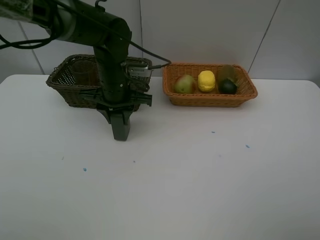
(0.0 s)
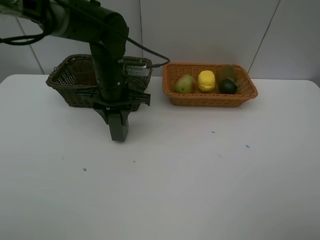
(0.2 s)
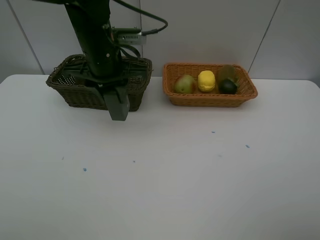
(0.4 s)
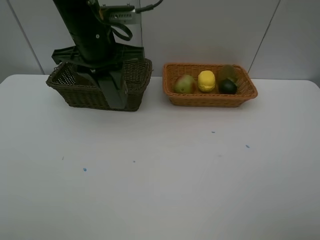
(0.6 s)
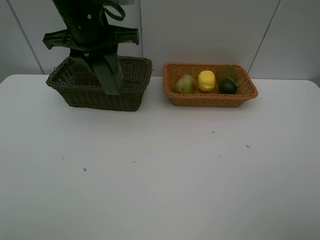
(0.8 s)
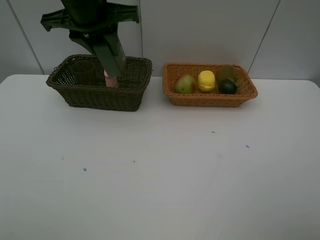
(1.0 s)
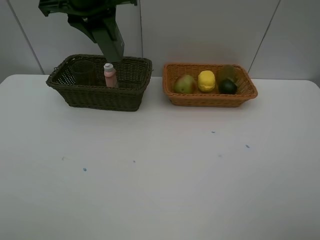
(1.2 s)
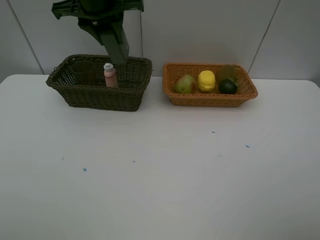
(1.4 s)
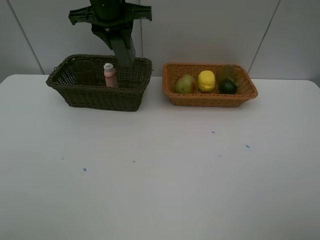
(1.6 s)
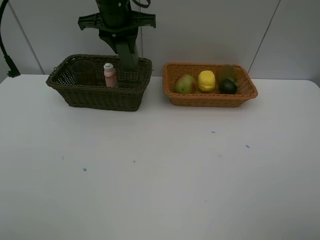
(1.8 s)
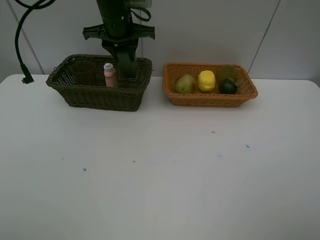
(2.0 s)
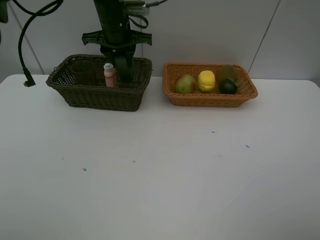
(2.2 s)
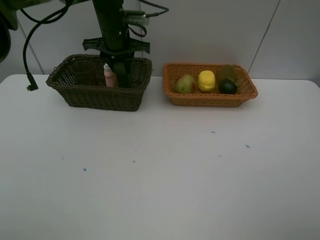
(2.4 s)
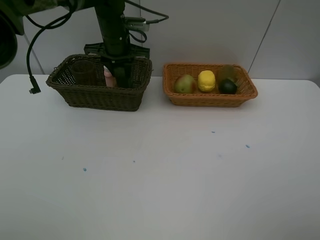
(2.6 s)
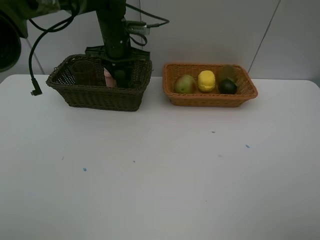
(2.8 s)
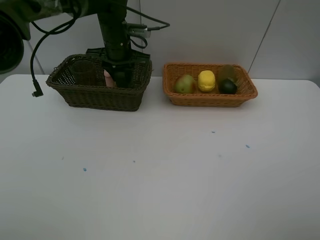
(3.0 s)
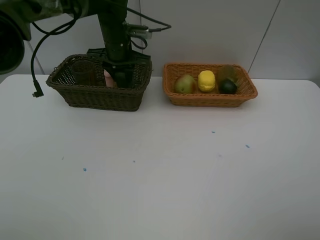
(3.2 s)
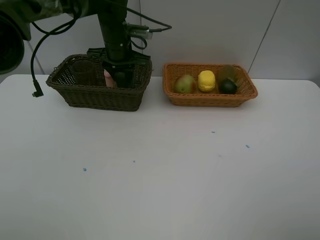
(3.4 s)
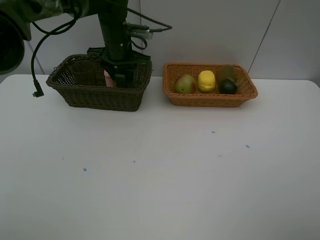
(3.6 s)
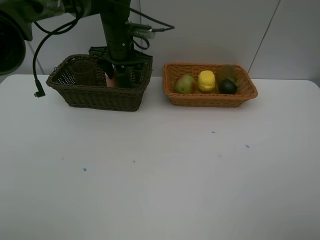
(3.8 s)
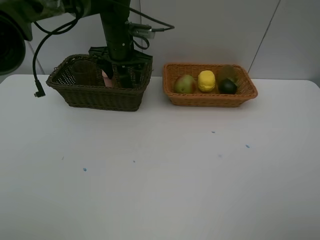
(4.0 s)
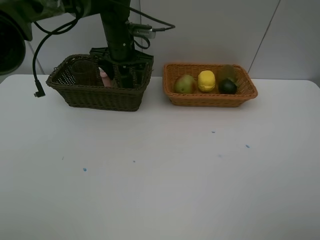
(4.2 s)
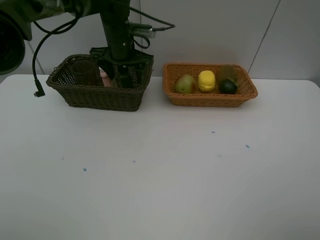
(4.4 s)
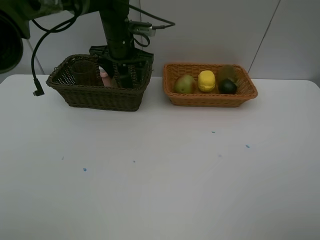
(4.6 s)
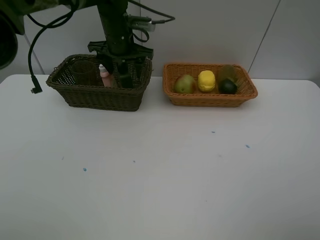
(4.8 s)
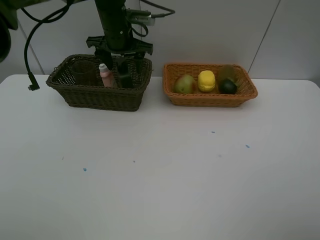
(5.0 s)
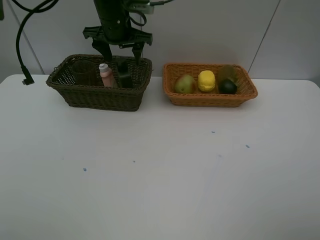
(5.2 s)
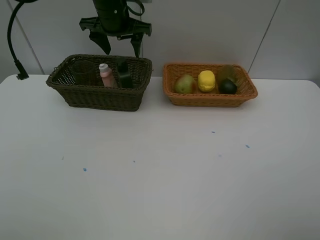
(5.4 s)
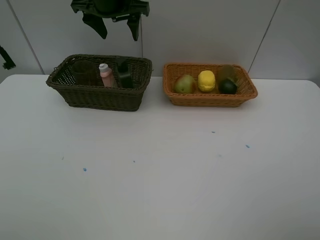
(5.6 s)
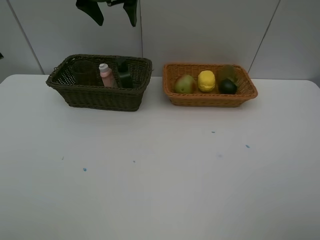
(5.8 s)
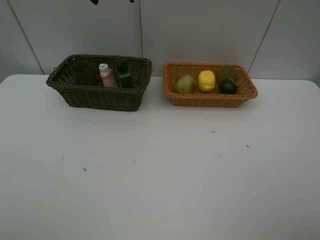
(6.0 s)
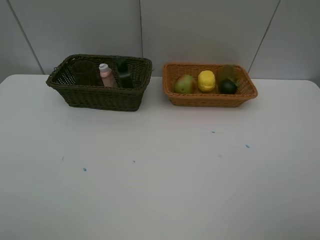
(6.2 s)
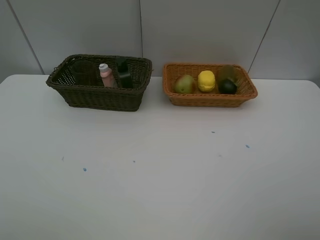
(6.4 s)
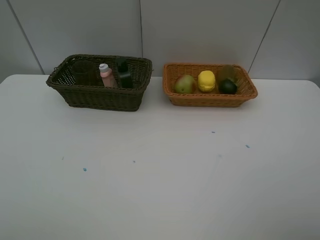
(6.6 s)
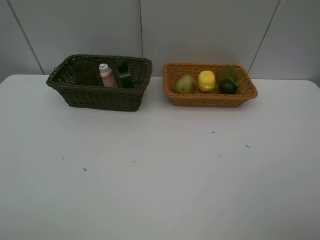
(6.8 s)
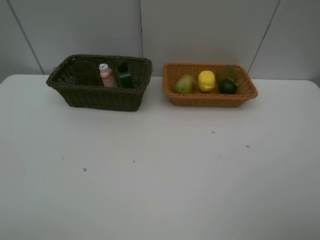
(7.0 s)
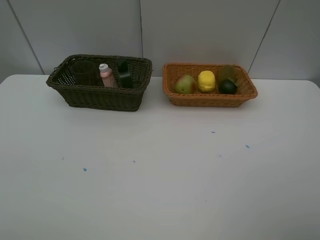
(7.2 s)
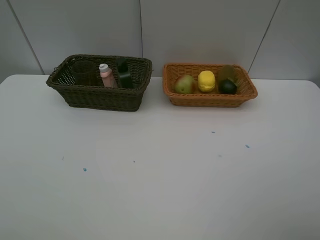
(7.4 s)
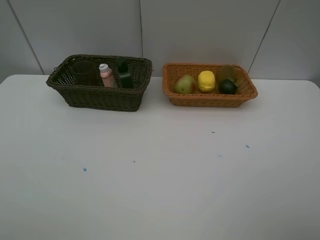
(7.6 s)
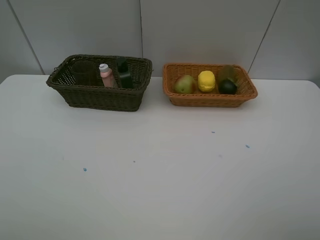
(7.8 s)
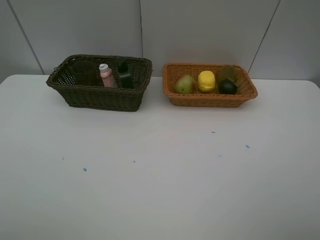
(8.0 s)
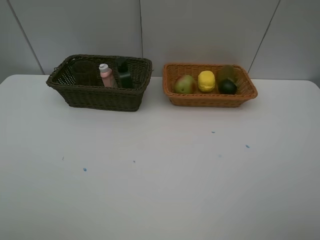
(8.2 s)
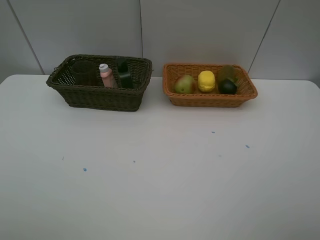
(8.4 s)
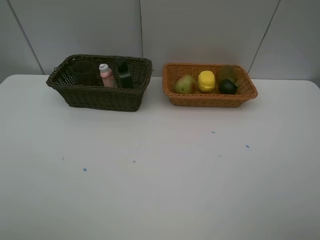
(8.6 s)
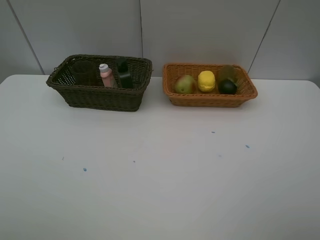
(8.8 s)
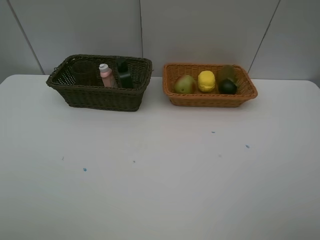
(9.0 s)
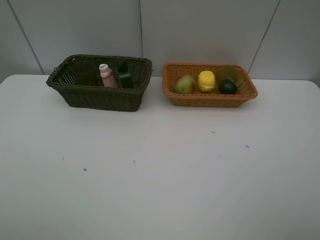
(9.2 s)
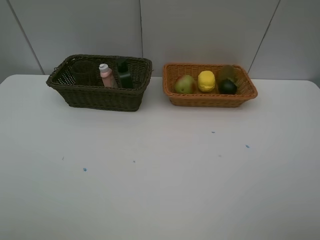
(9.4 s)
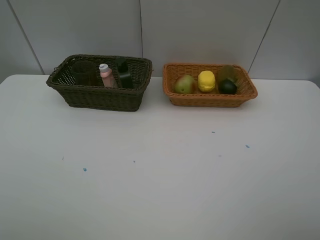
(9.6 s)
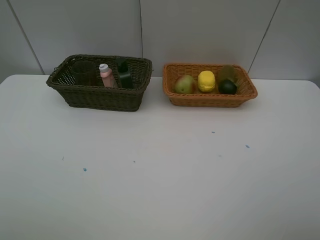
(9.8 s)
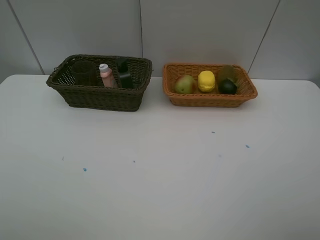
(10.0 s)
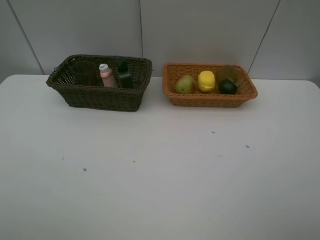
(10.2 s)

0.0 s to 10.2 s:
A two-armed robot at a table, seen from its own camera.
Task of the whole recording: Place multiple objects separately in different baskets.
Step, 0.6 to 4.8 s: Place the hard facial cleanser in the dark basket with left gripper.
0.0 to 1.4 s: The left gripper heads upward, covering some 15 cm.
1.4 to 3.0 s: The left gripper heads downward and forward, covering roughly 15 cm.
3.0 to 4.4 s: The left gripper opens its fingers.
4.4 to 5.8 s: The left gripper is displaced upward by roughly 15 cm.
5.8 to 7.2 s: The left gripper moves backward and to the left, about 30 cm.

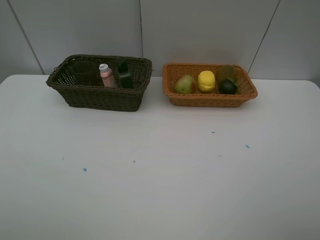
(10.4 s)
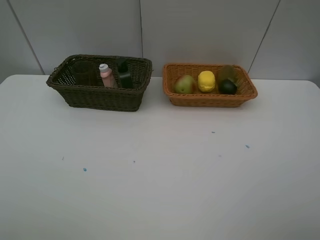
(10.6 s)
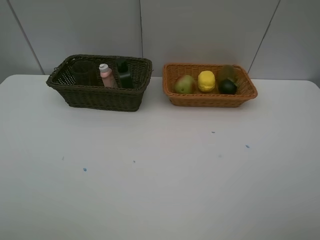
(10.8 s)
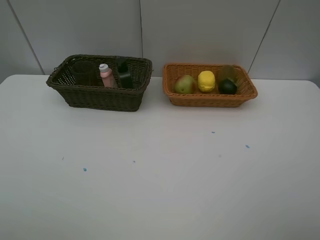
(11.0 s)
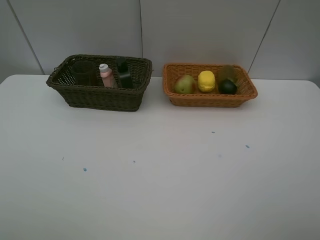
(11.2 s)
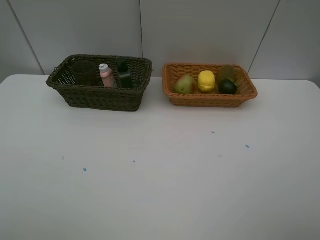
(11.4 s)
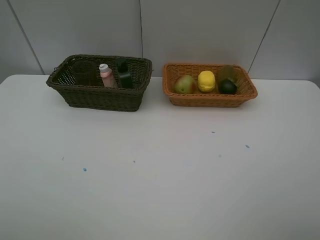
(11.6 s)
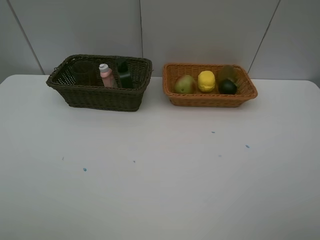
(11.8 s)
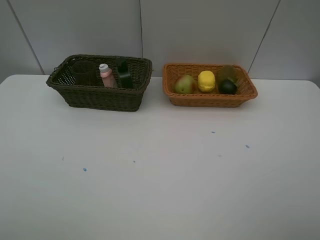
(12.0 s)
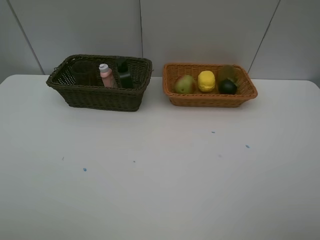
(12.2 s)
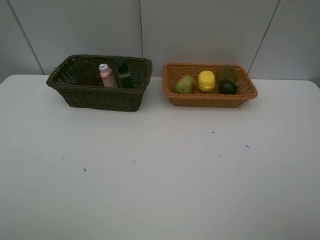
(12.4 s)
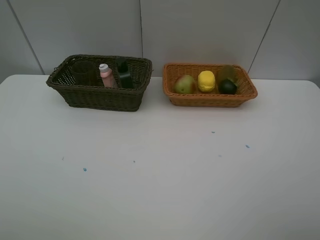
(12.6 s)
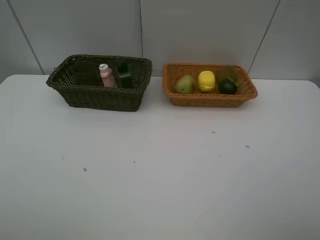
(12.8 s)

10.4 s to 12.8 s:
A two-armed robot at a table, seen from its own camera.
Task of the whole recording: Place multiple objects separately in different baskets.
10.4 to 12.8 s: The two grippers keep their place.

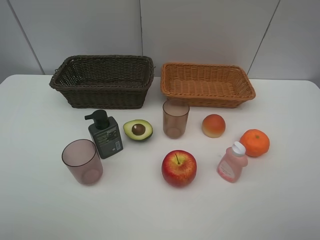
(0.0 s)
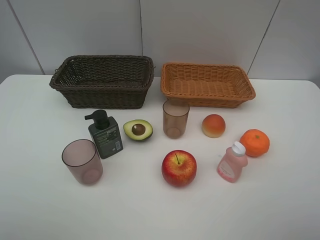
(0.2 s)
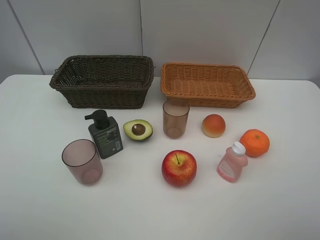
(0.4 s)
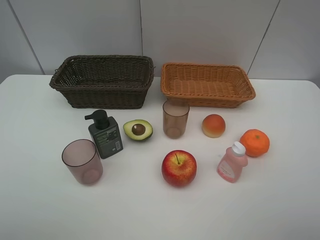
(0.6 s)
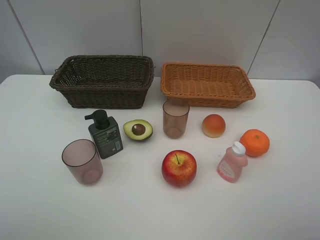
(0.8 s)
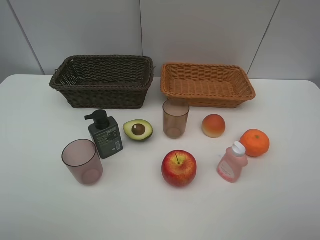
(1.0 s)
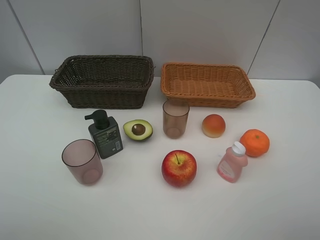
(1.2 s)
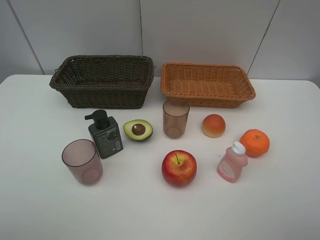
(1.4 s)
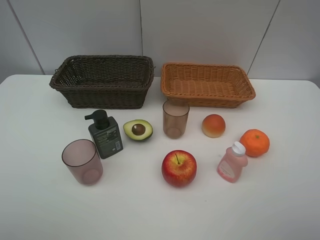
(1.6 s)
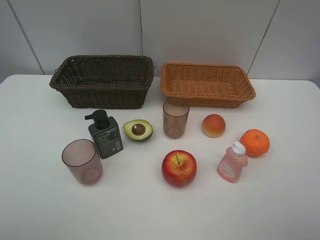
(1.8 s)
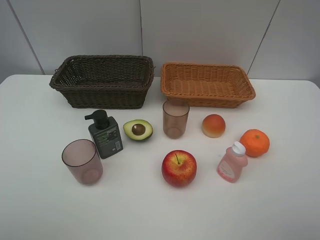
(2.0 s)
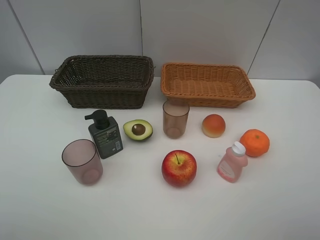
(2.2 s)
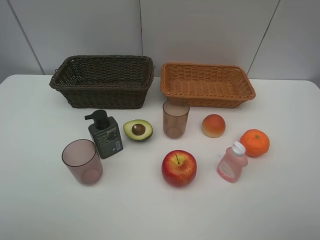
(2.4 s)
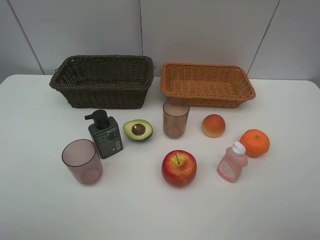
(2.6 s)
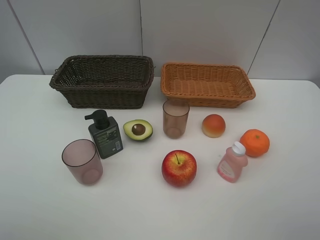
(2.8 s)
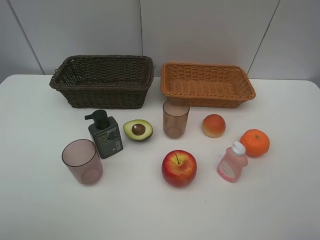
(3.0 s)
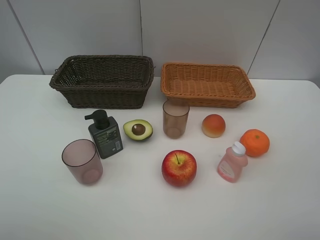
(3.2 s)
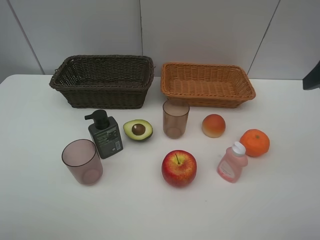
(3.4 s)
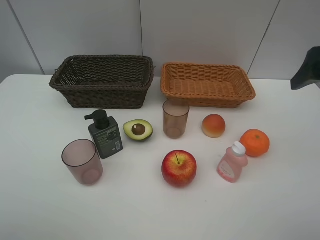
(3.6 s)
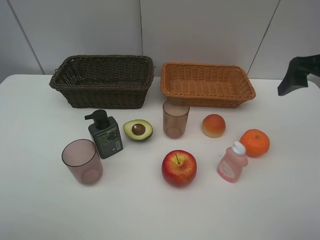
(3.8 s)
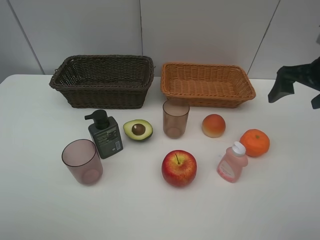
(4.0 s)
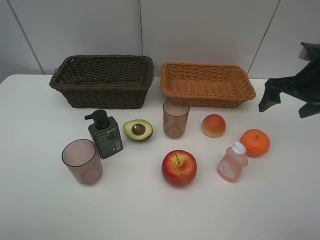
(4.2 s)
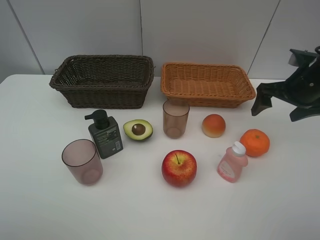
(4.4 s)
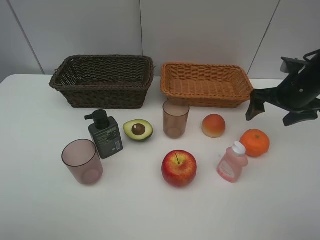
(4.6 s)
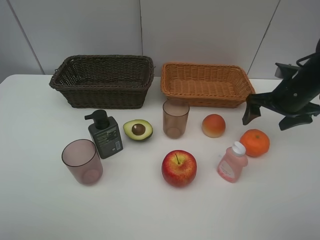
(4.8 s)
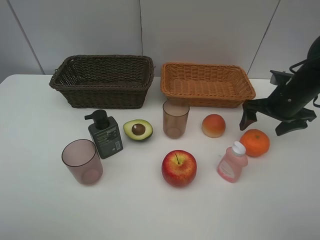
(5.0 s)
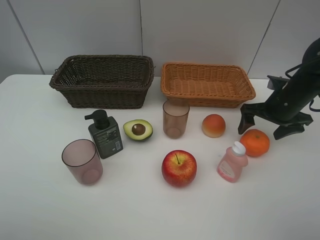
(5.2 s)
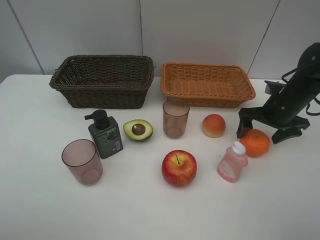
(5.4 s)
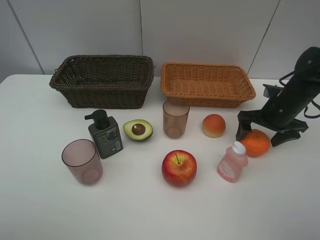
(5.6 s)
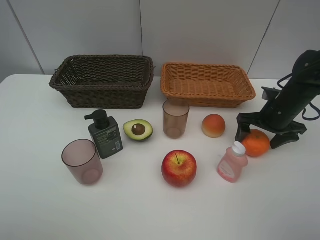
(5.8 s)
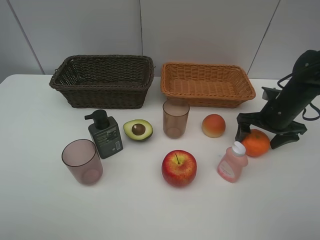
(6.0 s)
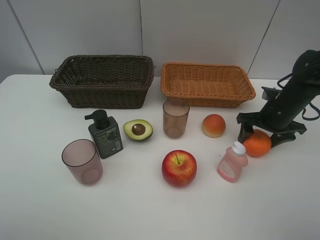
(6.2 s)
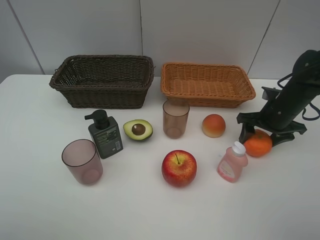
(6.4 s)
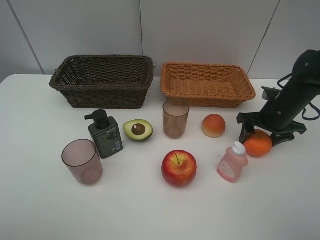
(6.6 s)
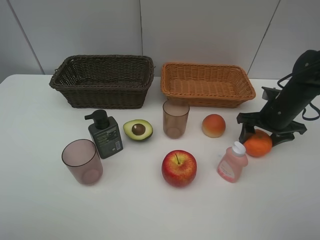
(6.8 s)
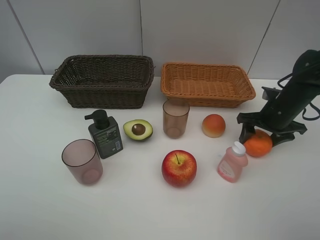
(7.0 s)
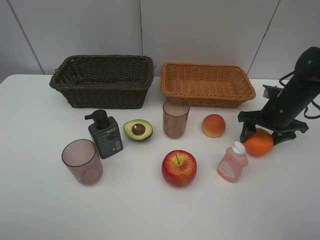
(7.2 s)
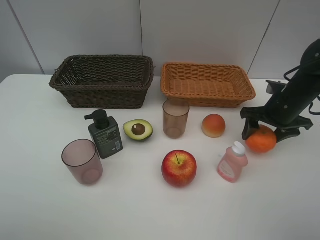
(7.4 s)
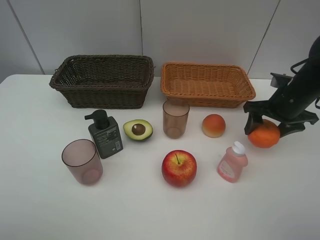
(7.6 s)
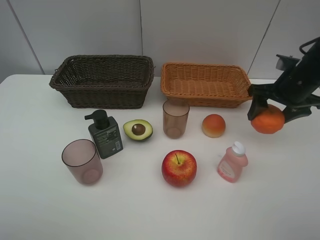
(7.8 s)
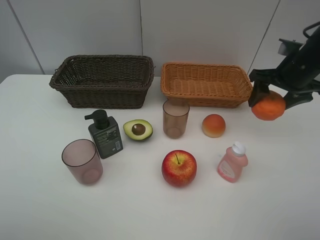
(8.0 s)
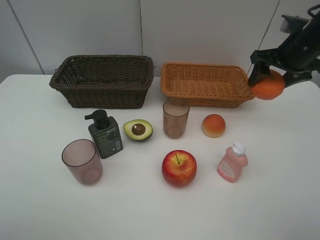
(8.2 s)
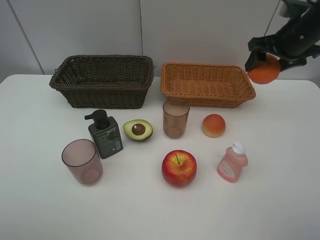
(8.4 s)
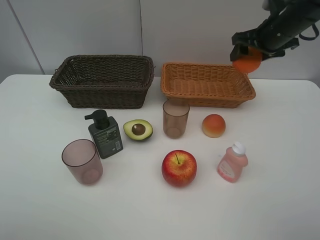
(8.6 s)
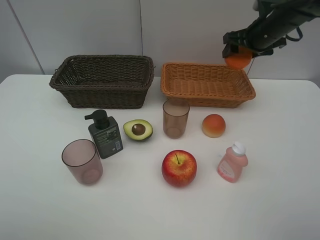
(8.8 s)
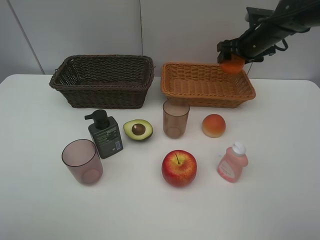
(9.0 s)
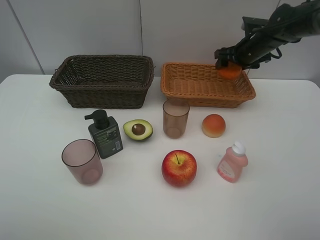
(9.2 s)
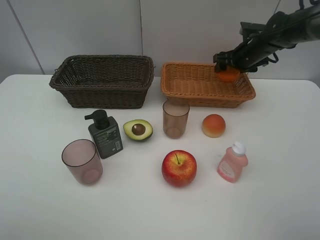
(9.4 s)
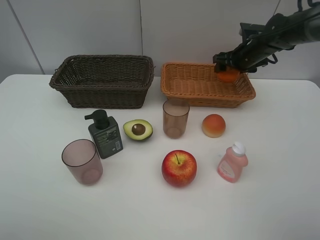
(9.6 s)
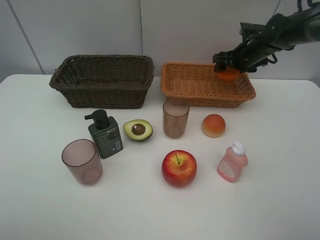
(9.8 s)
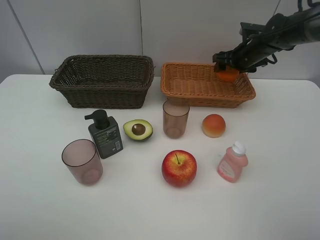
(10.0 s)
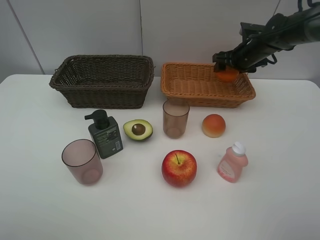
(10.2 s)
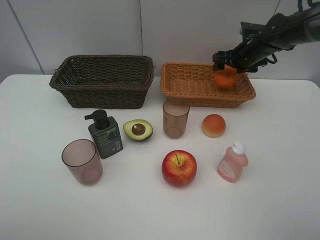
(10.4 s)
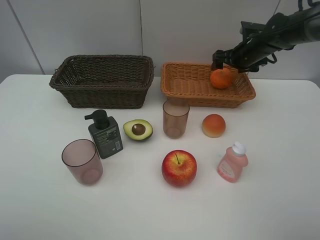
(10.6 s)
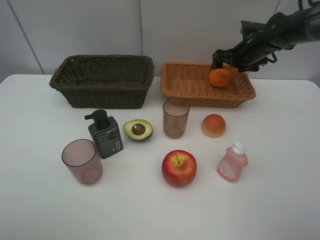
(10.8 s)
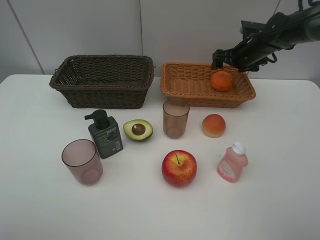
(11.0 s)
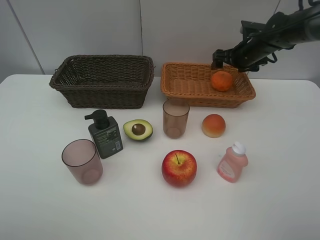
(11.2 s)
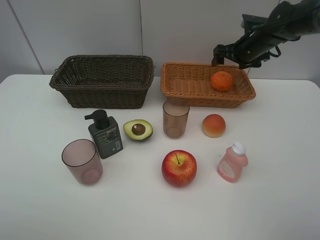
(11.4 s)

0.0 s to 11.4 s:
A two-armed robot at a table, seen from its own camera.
Task of the whole recording: Place multiple objects separately in different baskets.
Step, 0.0 to 7.4 s: Pick up the orange with right gripper.
Step, 7.6 to 10.6 s: Place the orange in the light basket with right gripper.
0.0 to 1.4 s: Both grippers stay put.
2.8 to 4.2 s: The right gripper moves forward, some 25 cm.
4.2 to 5.6 s: The right gripper goes about 10 cm downward.
5.6 to 7.2 s: The right gripper closes up.
7.2 to 8.6 s: The right gripper moves upward and forward, some 15 cm.
8.6 to 10.0 s: The right gripper is displaced downward and forward by some 10 cm.
10.0 to 11.4 s: The grippers stay close to where they were, moving slightly.
